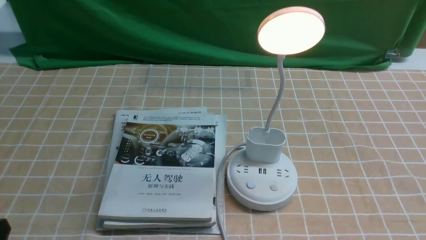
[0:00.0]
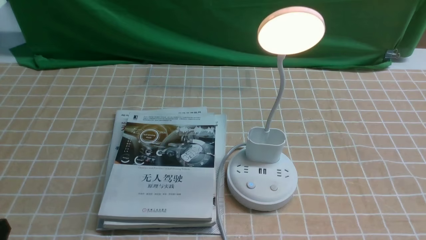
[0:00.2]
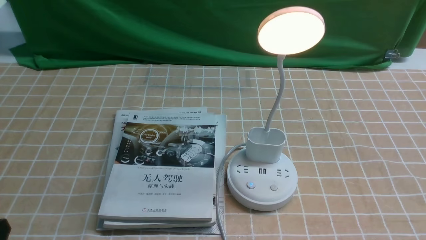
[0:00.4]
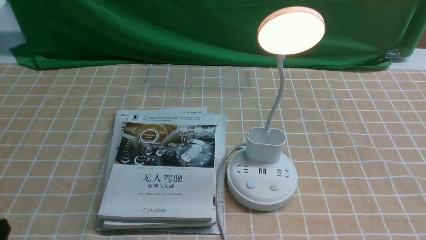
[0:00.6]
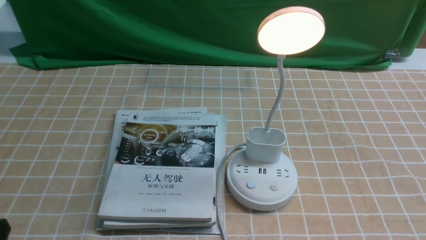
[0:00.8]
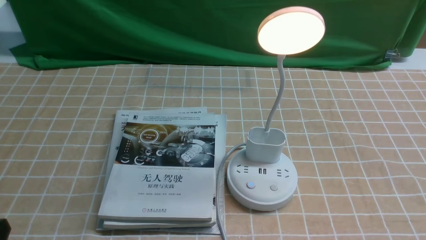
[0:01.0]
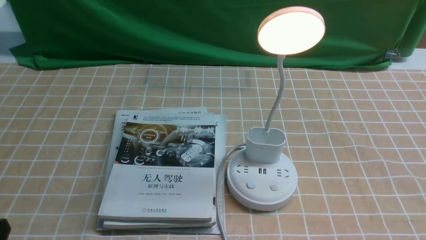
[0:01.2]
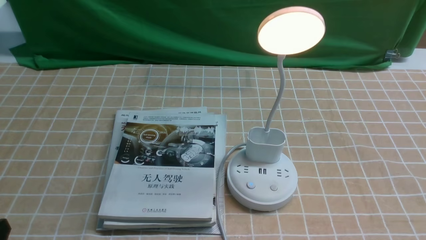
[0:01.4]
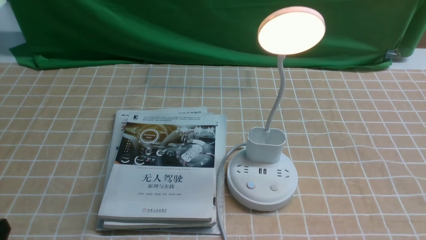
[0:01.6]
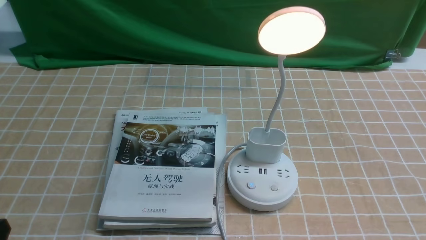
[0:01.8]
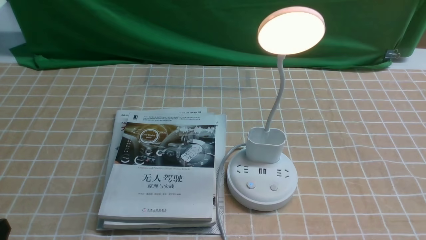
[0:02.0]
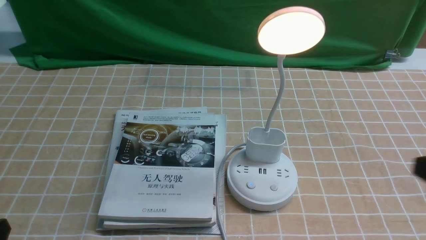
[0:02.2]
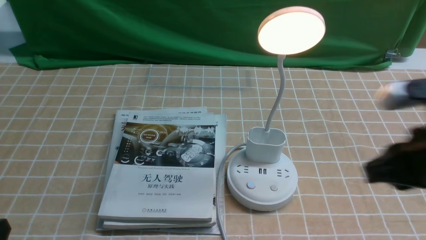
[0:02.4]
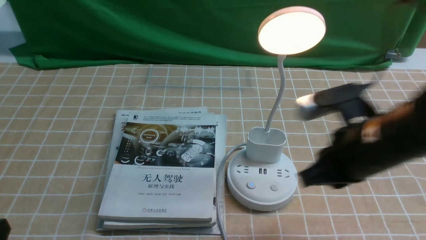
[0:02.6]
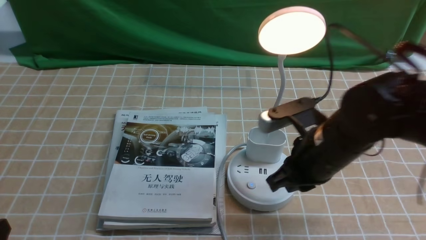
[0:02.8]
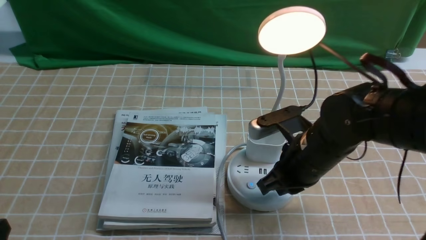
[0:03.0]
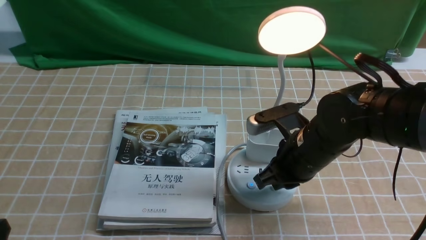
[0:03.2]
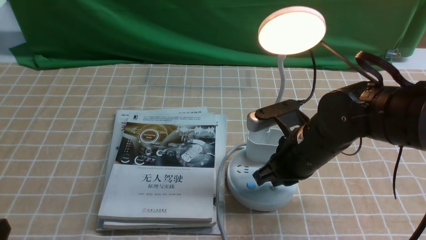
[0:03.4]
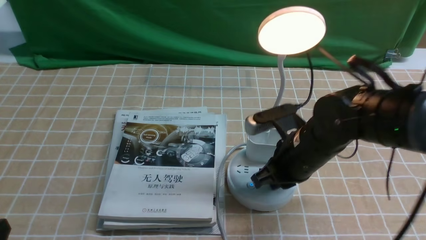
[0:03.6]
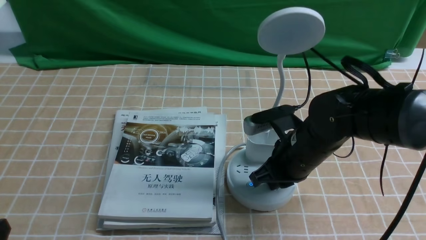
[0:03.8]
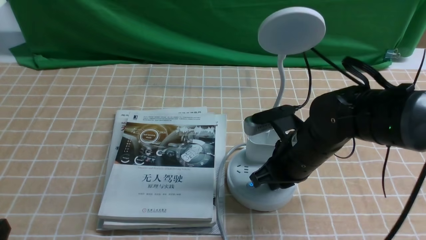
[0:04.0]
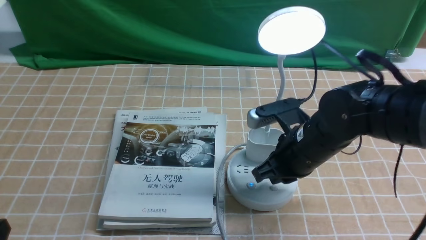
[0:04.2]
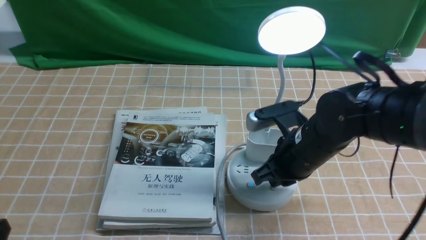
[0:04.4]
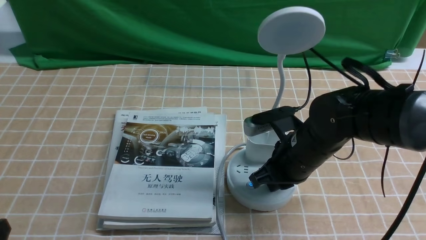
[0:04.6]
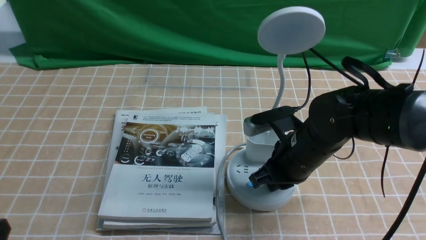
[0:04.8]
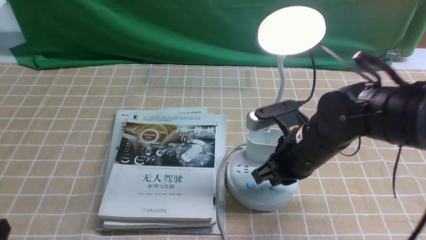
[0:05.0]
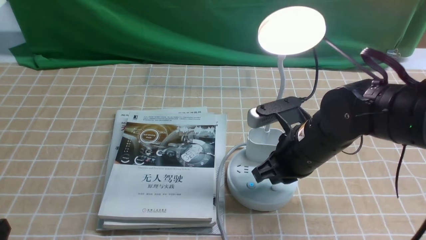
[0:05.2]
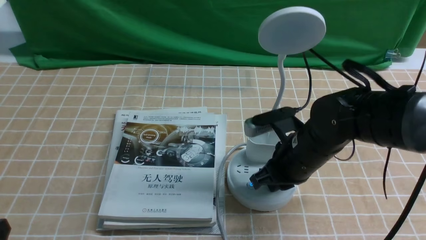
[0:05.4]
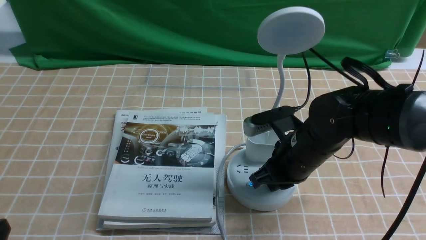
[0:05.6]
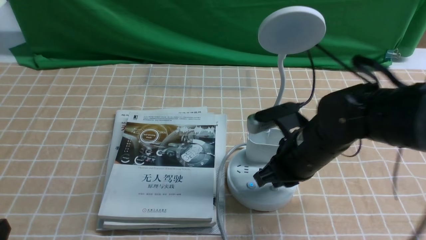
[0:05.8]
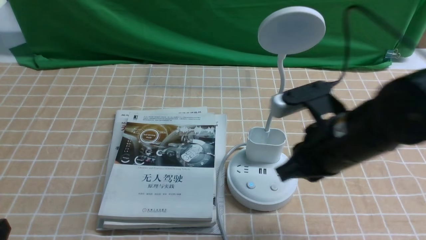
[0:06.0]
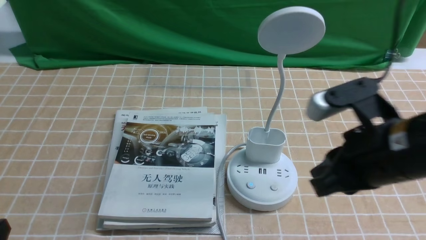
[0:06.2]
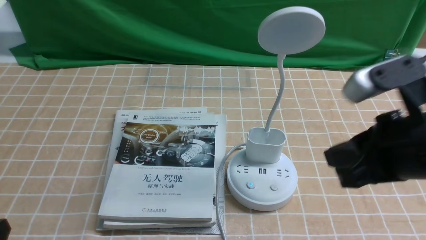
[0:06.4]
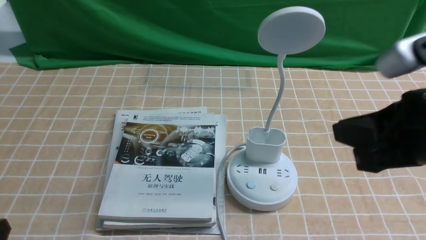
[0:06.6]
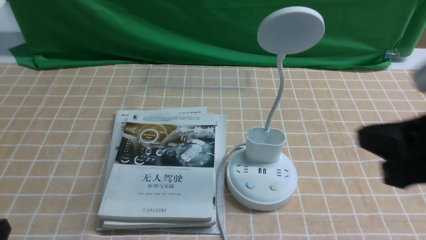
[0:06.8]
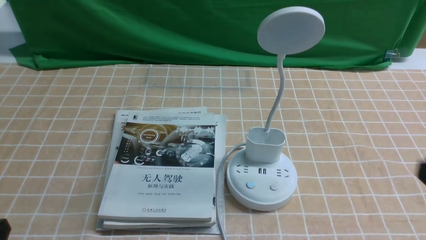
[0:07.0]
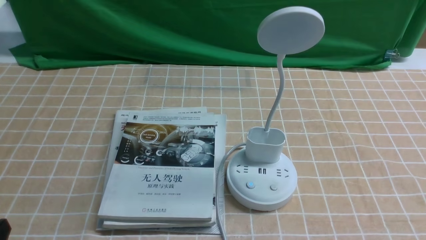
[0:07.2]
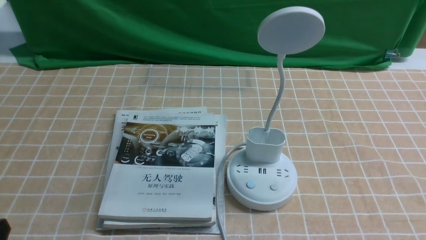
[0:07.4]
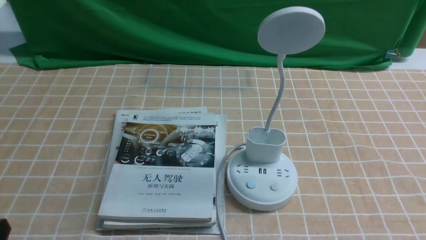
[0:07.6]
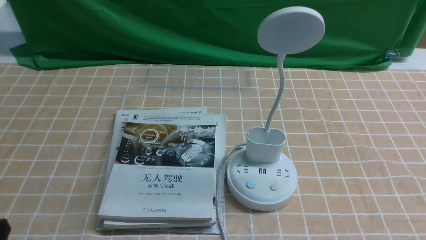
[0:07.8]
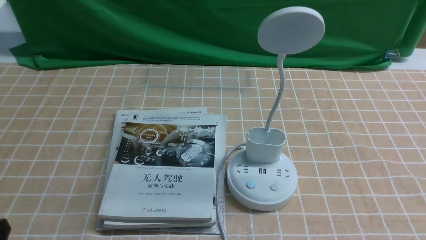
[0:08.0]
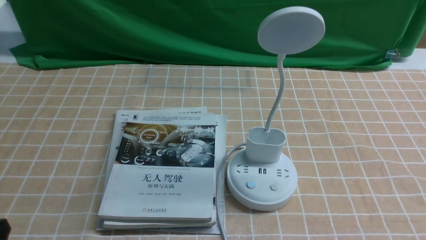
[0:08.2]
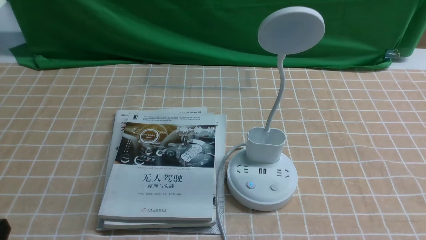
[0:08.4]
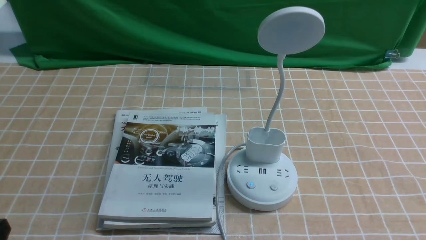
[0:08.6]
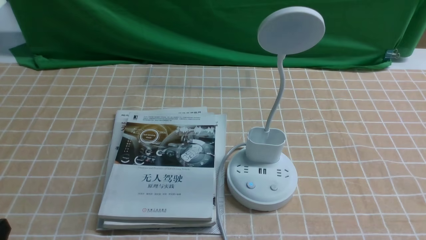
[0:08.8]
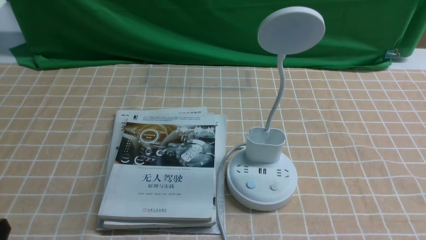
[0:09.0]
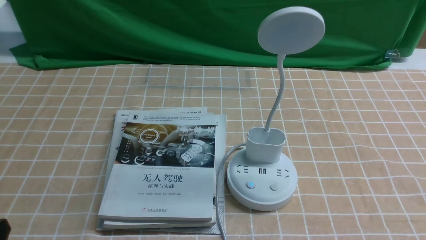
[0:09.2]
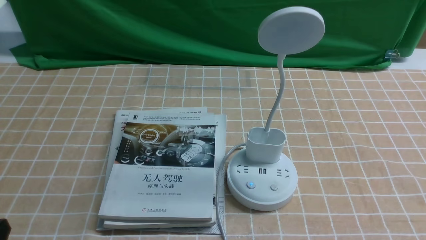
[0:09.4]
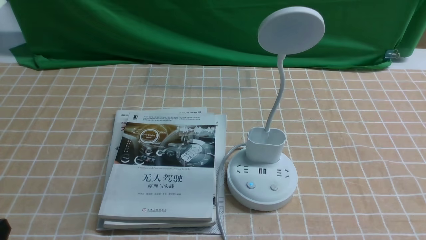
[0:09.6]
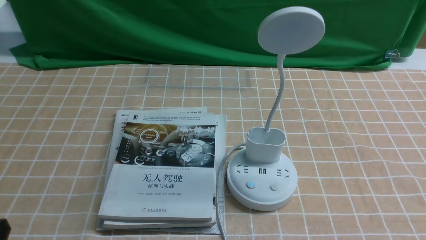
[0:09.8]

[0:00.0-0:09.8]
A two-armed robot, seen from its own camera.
Task of the whole recording: turn off the desk lamp on the light coffee tablecloth by hand.
Step, 0:00.0 to 0:05.8: use the right arm to press the button switch on the lamp holder.
0:01.4 to 0:02.8: The right gripper heads forward and to the left, covering some 25 cm, and closes.
0:02.8 to 0:04.2: There are only small adjustments of the grippers.
0:04.2 to 0:05.6: Neither gripper changes place.
0:05.6 to 0:07.0: The right gripper travels backward, to the right and upward by about 25 cm.
